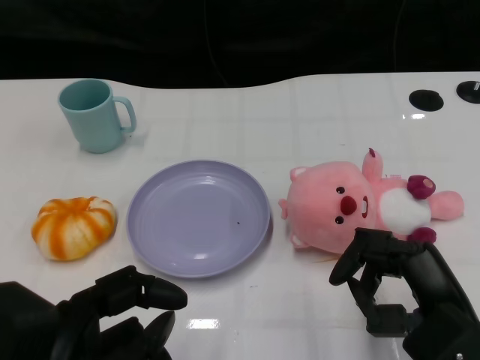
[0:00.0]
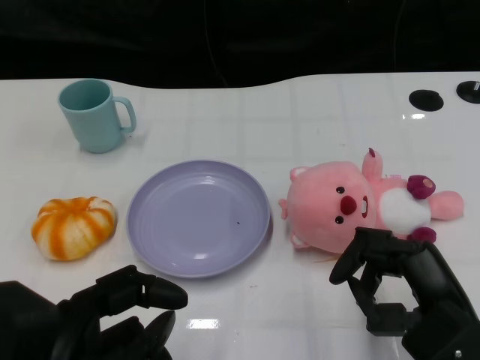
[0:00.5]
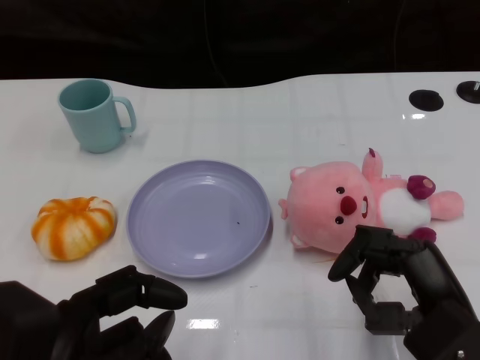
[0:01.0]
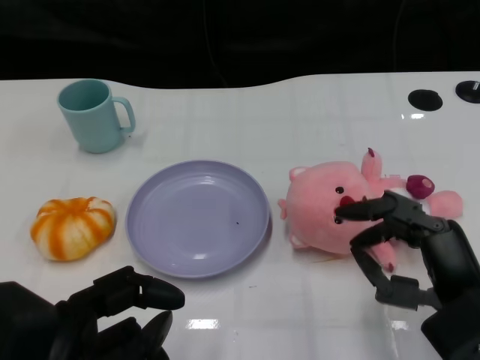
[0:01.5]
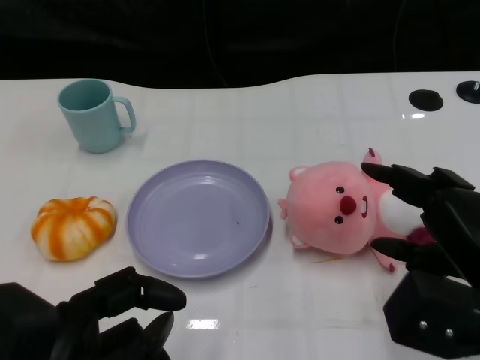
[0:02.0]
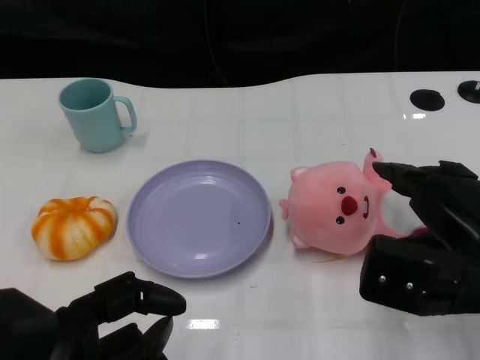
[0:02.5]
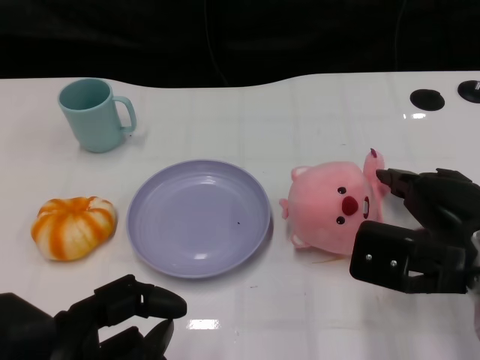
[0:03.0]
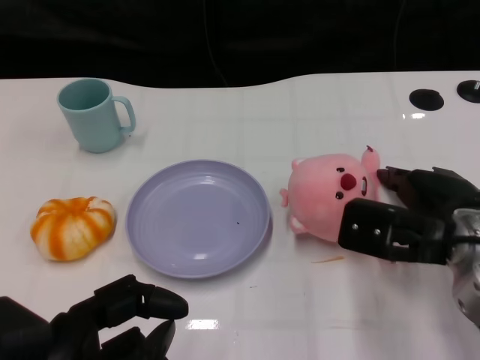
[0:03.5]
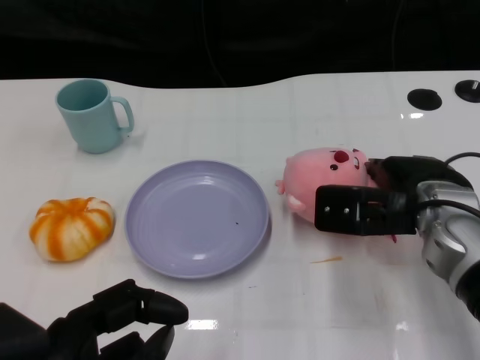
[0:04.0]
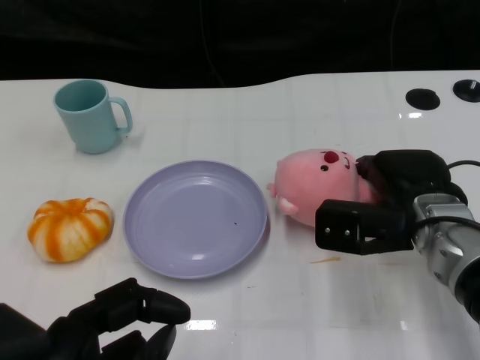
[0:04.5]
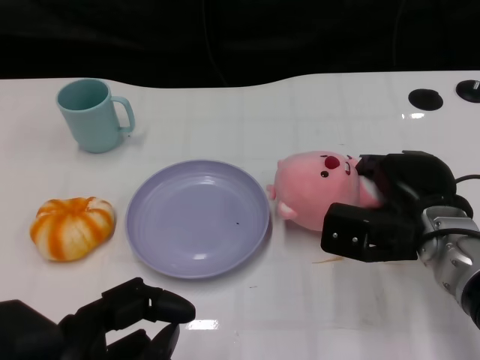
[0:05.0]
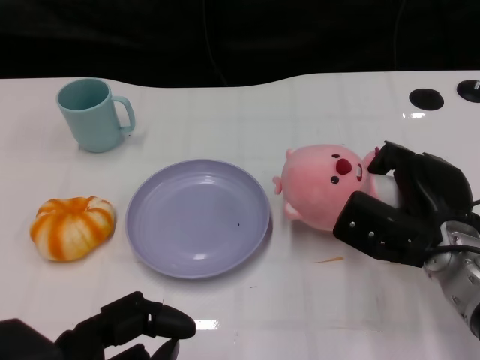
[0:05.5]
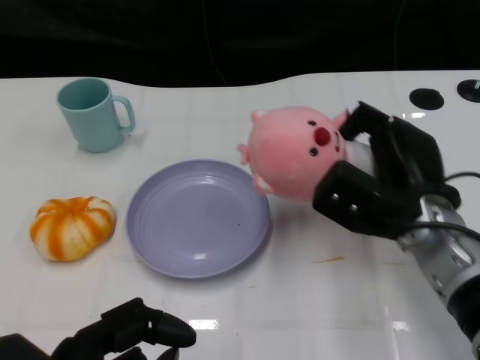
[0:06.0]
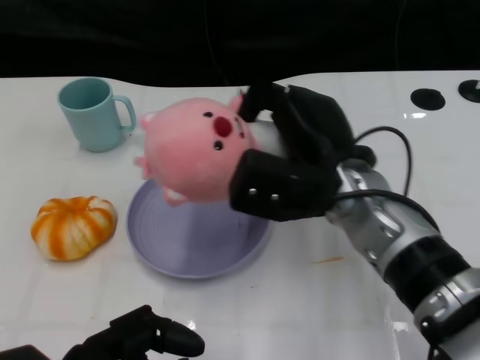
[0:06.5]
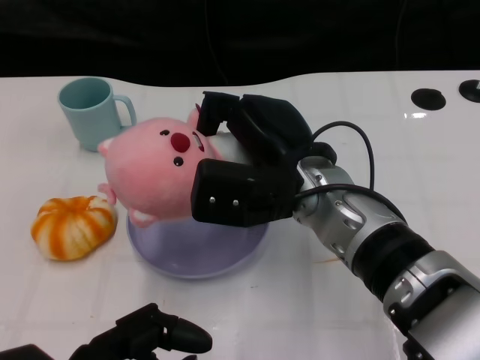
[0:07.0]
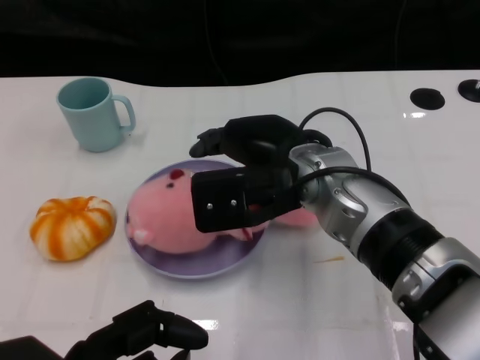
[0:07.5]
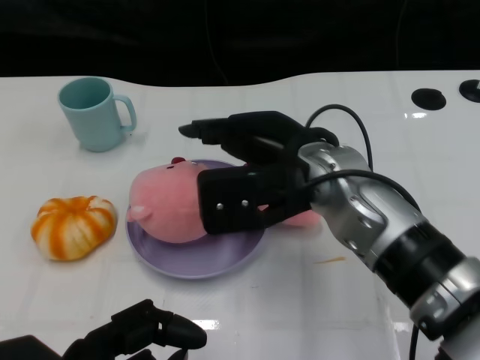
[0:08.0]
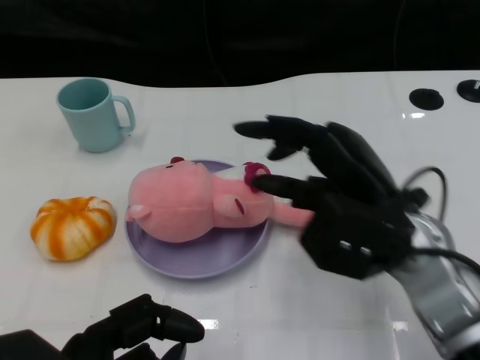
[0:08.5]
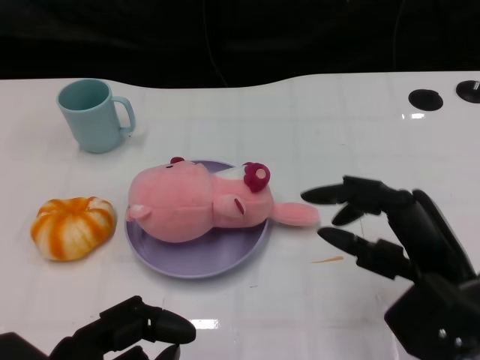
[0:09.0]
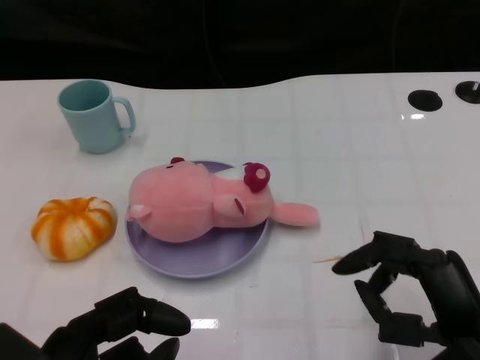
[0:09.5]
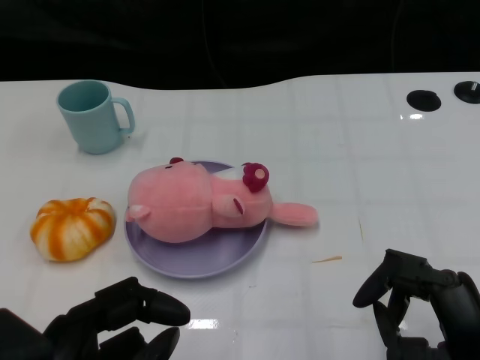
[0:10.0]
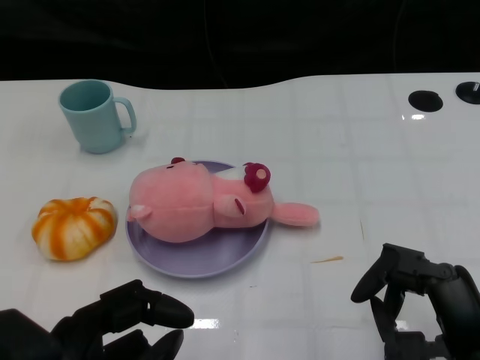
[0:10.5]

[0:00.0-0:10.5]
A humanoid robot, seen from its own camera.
Task of the whole recording: Pick up the doll on the other side of the plate and place it into the plate.
Step, 0:01.0 to 0:06.0: Grasp the pink doll with the right gripper.
Step, 0:06.5 to 0:08.0: Place the pink doll into the plate with the right gripper.
0:02.0 to 0:04.0: The right hand travels forward by about 10 cm.
0:04.0 to 0:06.5: The right hand travels to the left by about 10 cm.
0:06.5 to 0:08.5: The right hand changes place by roughly 5 cm.
0:08.5 to 0:10.5: The right hand goes roughly 15 cm backward, to the right and downward.

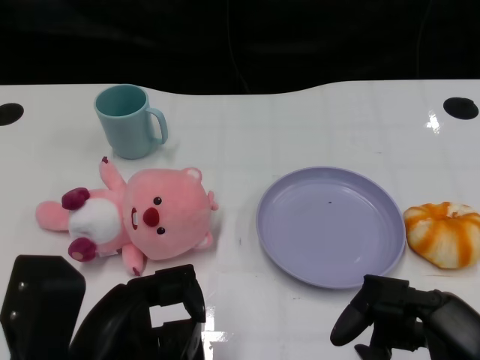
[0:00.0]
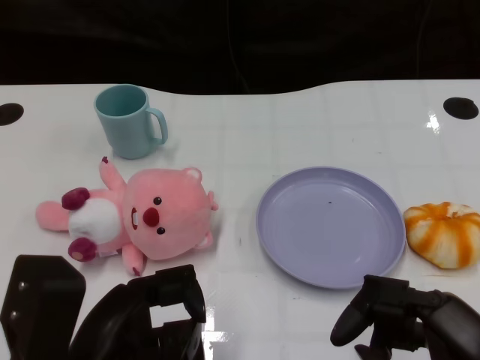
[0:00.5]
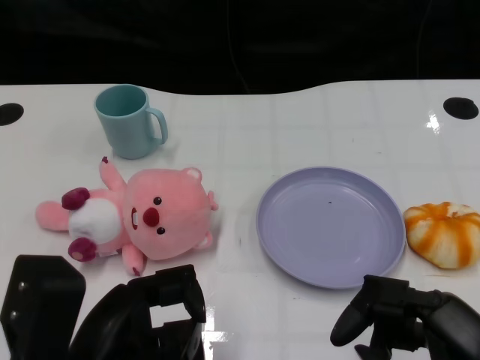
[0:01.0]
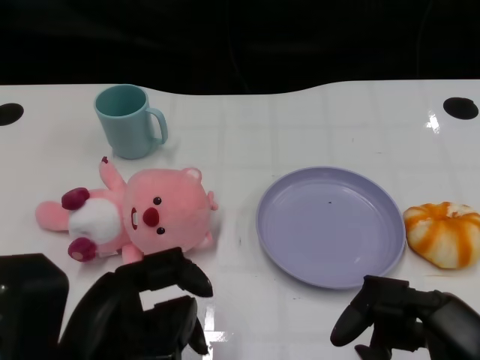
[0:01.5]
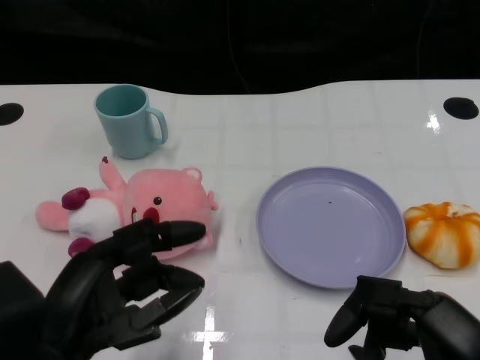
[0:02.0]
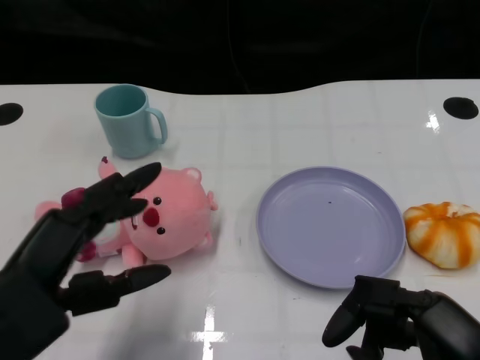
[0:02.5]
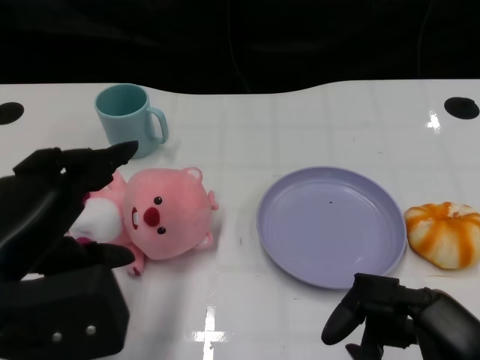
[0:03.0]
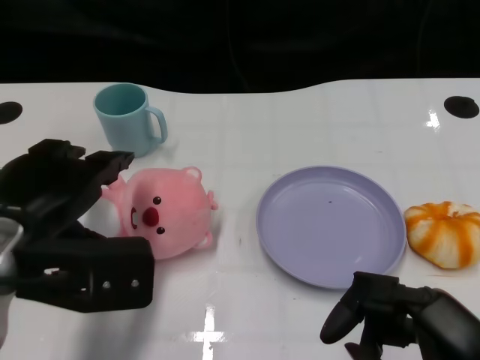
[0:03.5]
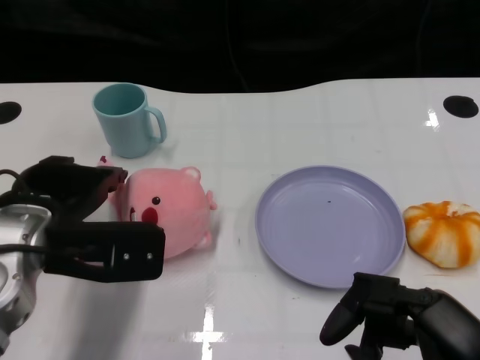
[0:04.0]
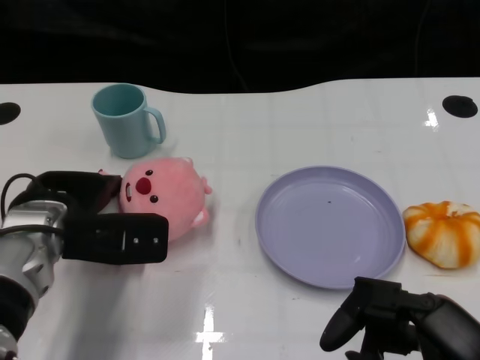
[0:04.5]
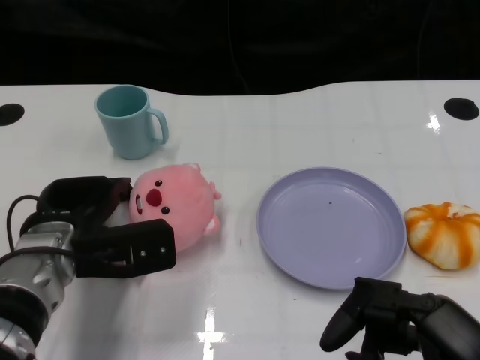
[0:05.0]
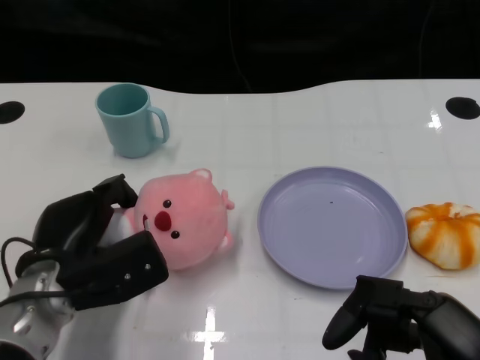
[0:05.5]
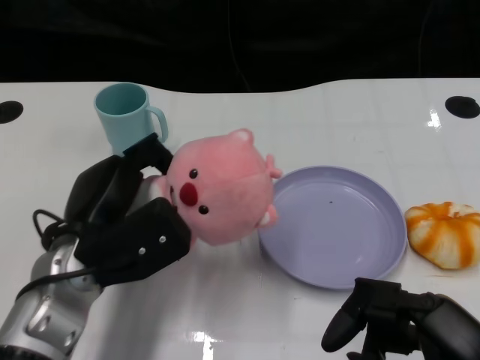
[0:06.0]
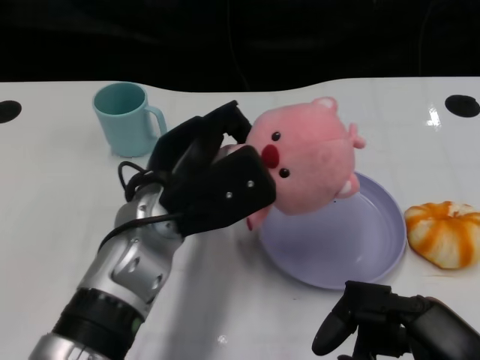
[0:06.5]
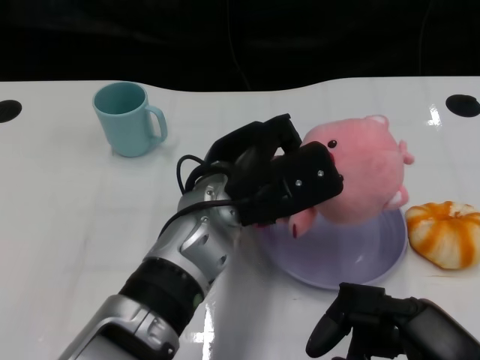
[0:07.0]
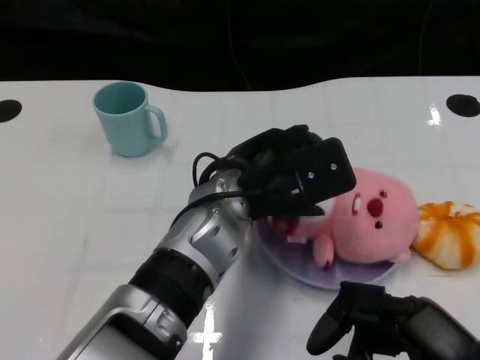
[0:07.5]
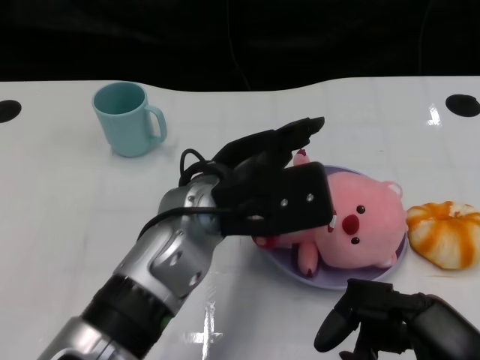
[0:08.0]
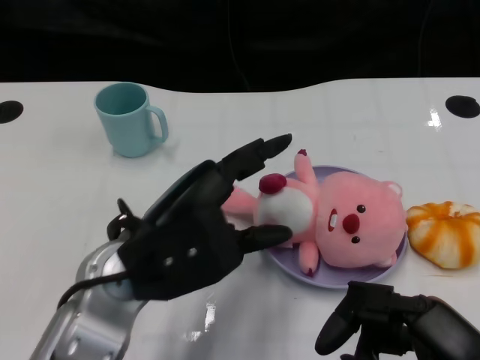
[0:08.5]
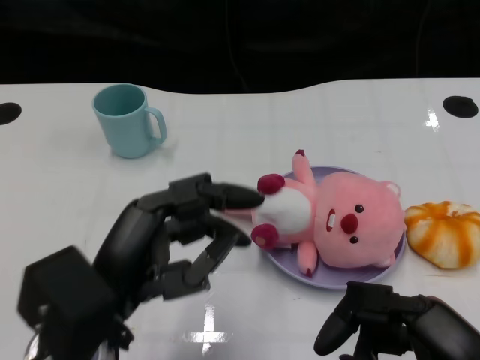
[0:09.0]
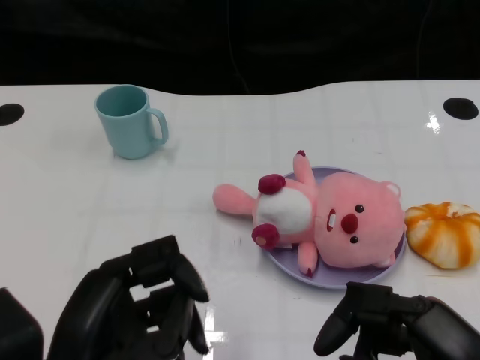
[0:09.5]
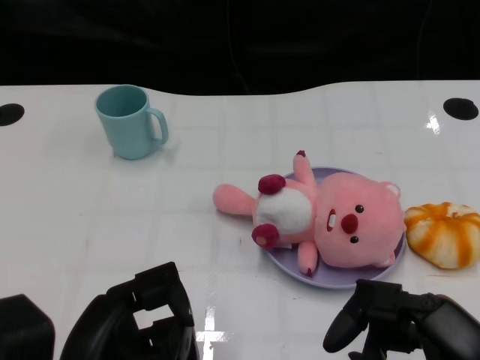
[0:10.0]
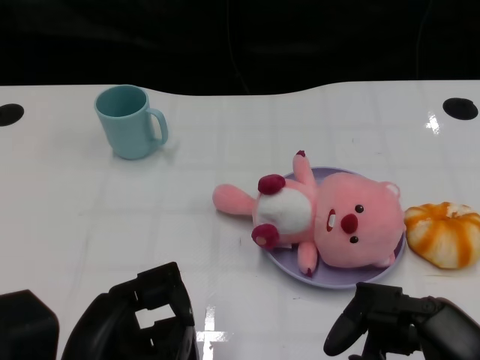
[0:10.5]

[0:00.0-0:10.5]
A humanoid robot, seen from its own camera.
Task of the whole recording: Pick up the doll on one side of the plate and place it into the plate.
Step, 0:01.5 to 0:05.0: Grasp the pink doll with the left gripper.
Step, 0:06.0 to 0:07.5: Place the pink doll into the plate with the left gripper.
0:02.0 to 0:04.0: The left hand shifts approximately 10 cm forward.
0:04.0 to 0:06.5: The left hand travels to the right by about 10 cm.
0:06.5 to 0:08.5: The left hand moves backward, approximately 5 cm, and goes to the right and returns, about 5 cm each way.
0:08.5 to 0:10.5: The left hand shifts approximately 10 cm backward and to the left.
